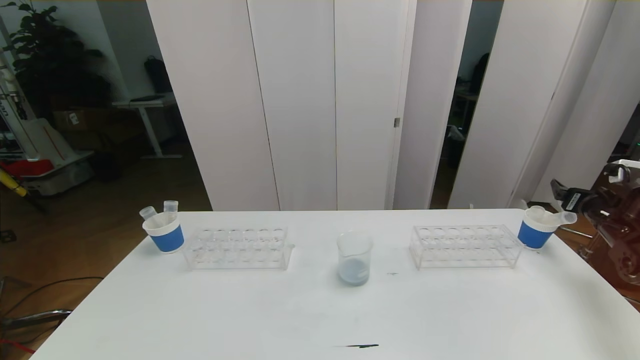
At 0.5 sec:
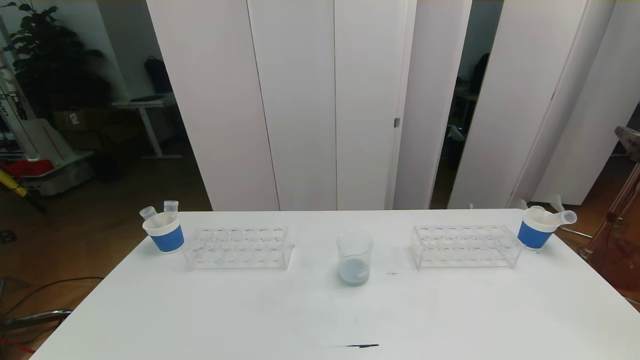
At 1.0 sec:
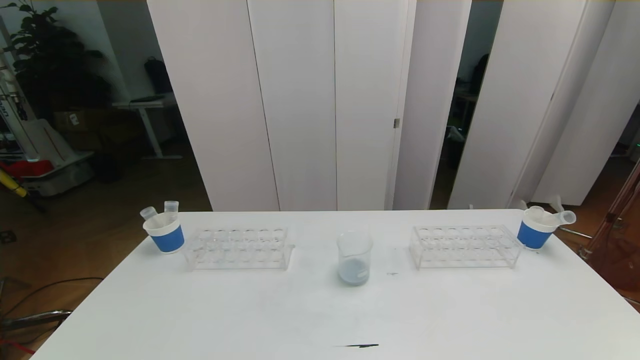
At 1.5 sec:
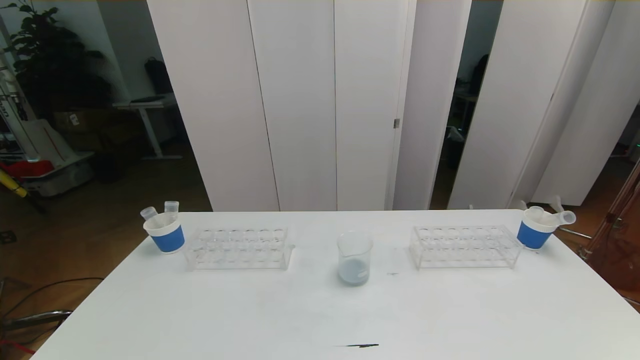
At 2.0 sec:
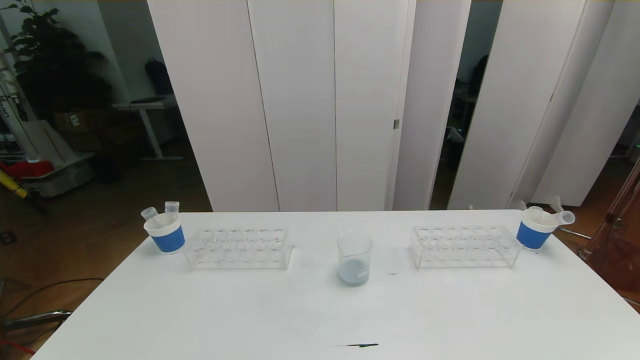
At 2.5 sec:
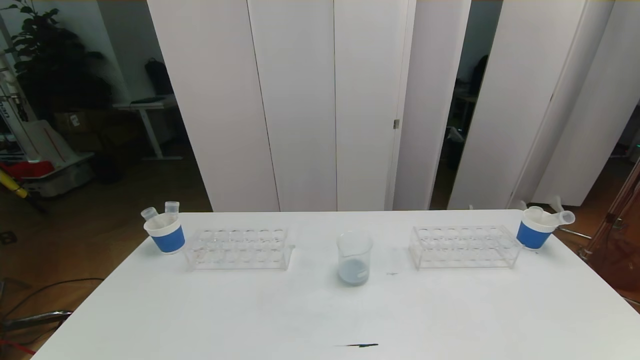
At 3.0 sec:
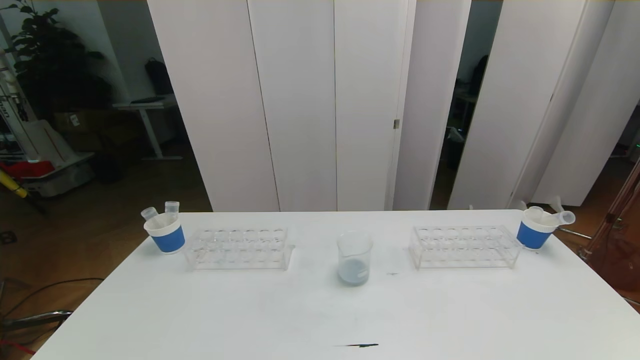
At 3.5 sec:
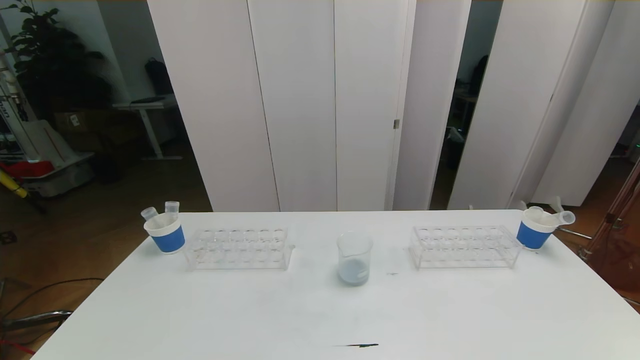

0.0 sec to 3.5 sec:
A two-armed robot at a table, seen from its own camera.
Task of the whole recording: pick up the test tube with red pigment the test tube with blue pigment and the test tube with white pigment by grippers and pour them into the beaker.
0.0 sec to 2.0 sec: The right gripper is displaced backward and upward by approximately 50 cm.
